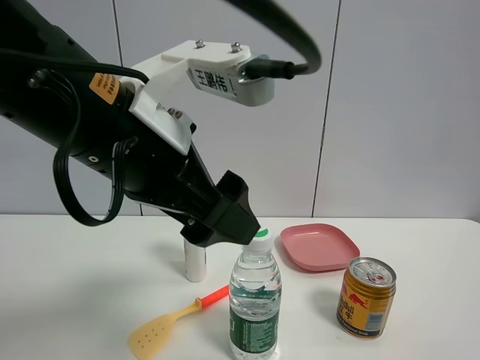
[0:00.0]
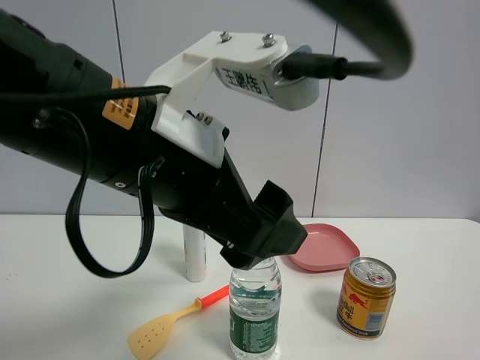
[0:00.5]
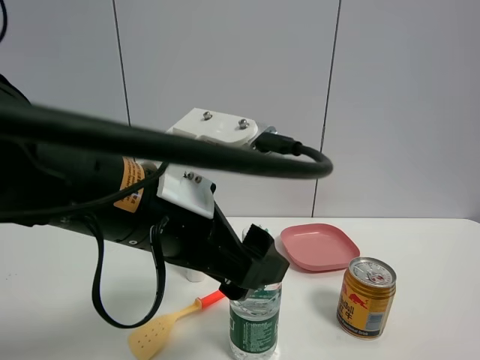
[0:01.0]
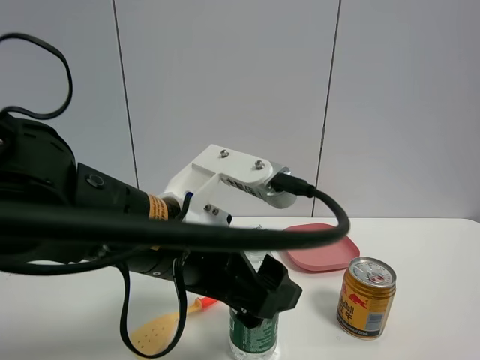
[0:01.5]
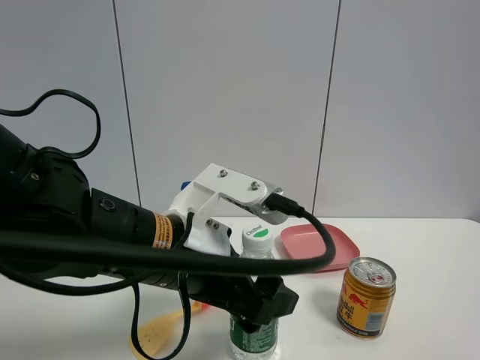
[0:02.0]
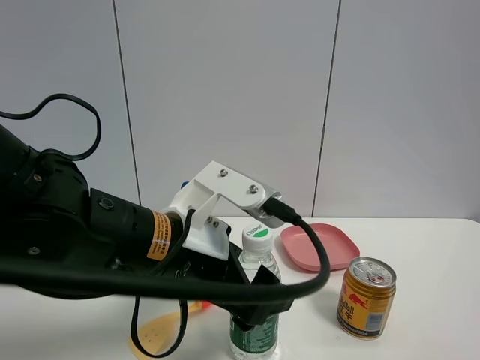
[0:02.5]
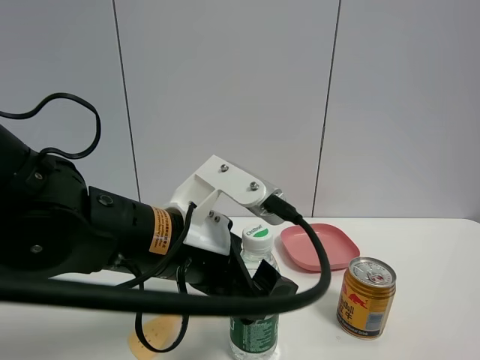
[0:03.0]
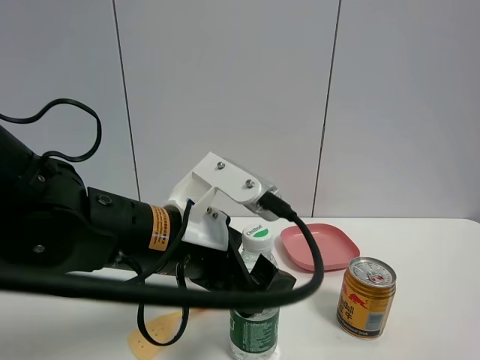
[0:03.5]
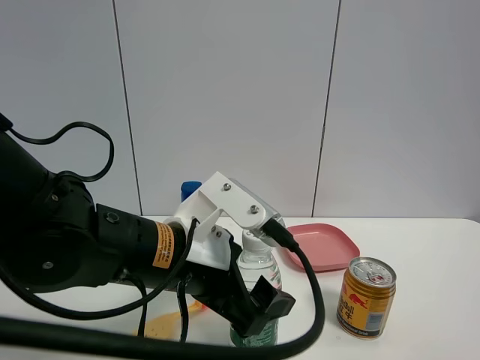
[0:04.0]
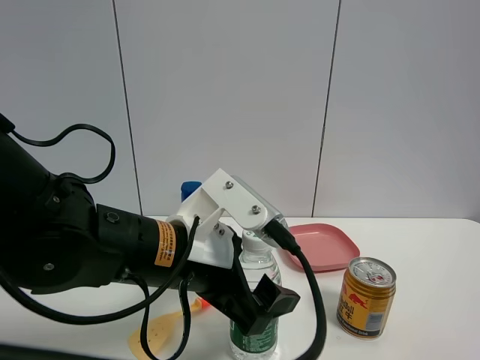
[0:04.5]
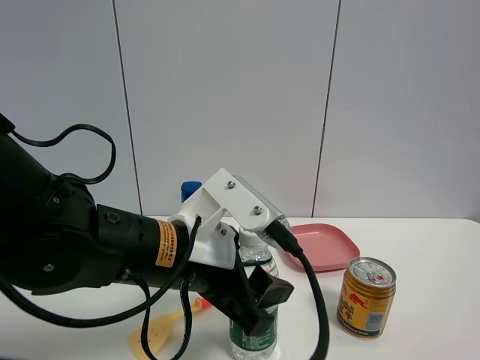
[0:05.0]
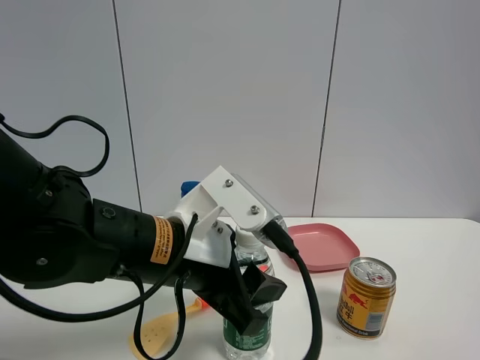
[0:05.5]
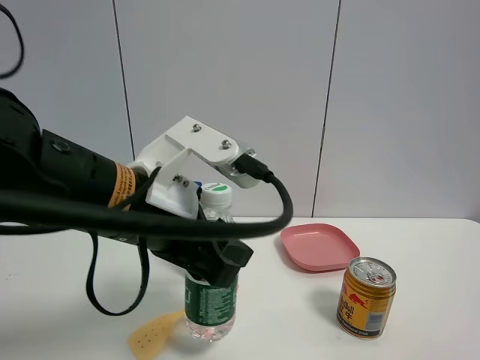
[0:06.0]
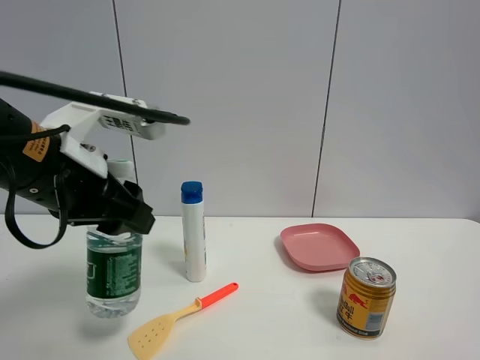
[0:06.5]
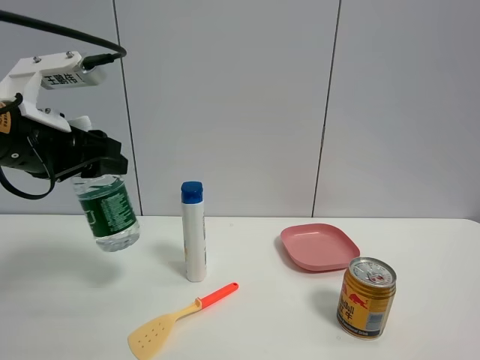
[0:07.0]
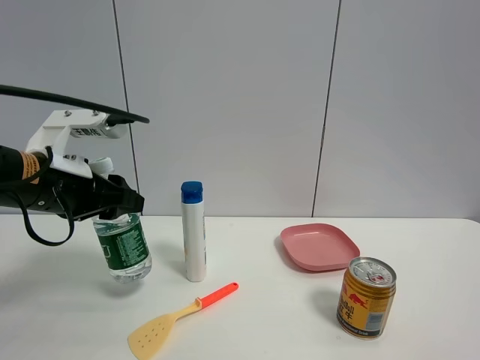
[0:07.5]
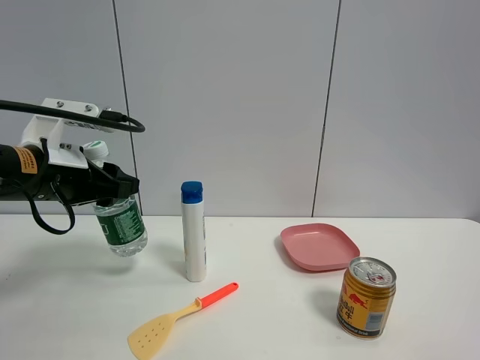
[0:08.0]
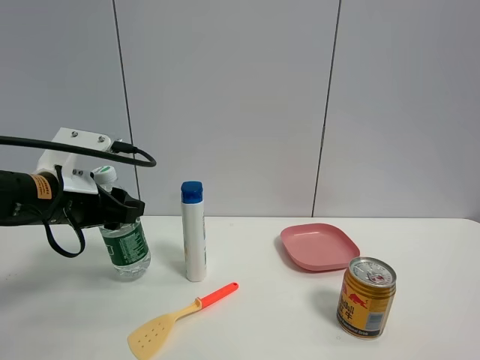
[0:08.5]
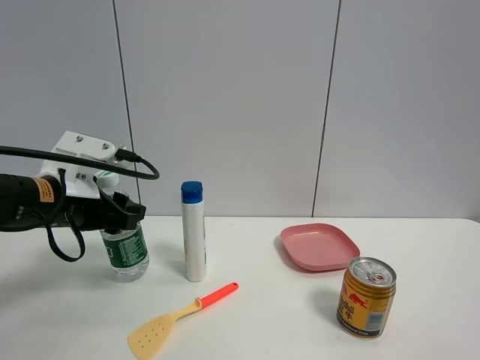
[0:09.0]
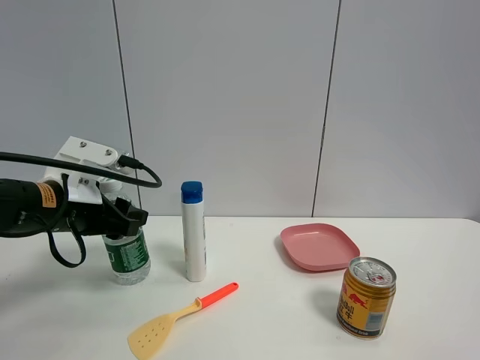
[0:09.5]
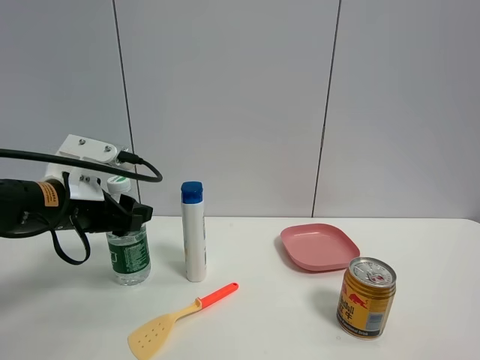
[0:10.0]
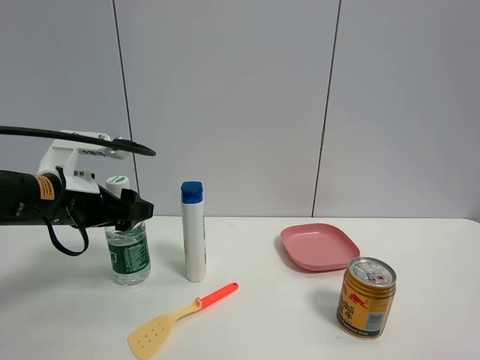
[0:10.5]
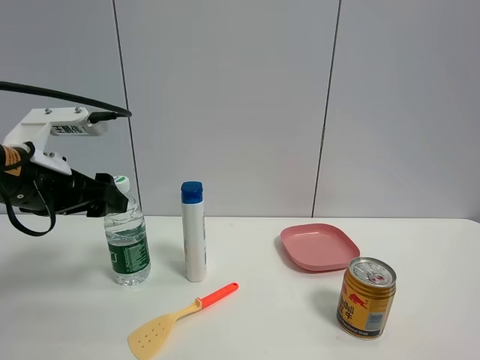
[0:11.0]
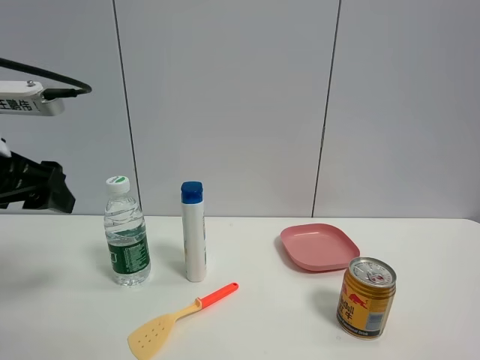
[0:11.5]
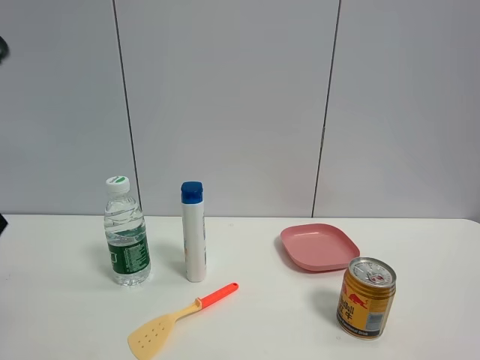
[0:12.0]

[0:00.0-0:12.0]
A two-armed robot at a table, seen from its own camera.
Task of the whole recording: the gripper move the object.
Step, 0:00.0 to 0:05.0: Grasp the YiBao mineral water with the left gripper.
Step, 0:05.5 to 0:10.0: Place the YiBao mineral water on the table with the left gripper.
0:00.0 to 0:02.0: The left gripper travels downward by about 10 cm.
0:02.0 to 0:04.0: The grippers stay close to where they were, moving slightly.
0:04.0 to 0:06.0: The left gripper travels upward by about 5 cm, and closes.
0:06.0 to 0:08.0: The left gripper goes some 15 cm to the left and forward.
0:08.0 to 0:10.0: The grippers make only small movements.
0:10.0 to 0:12.0: The left gripper moves backward and upward, roughly 20 cm, and opens its fingers.

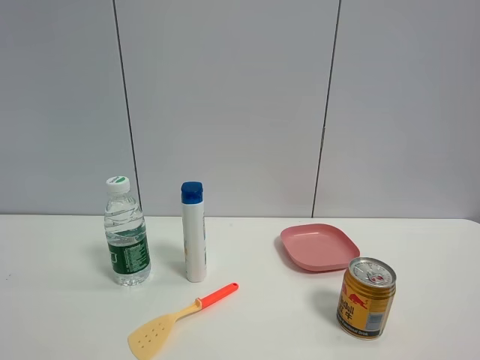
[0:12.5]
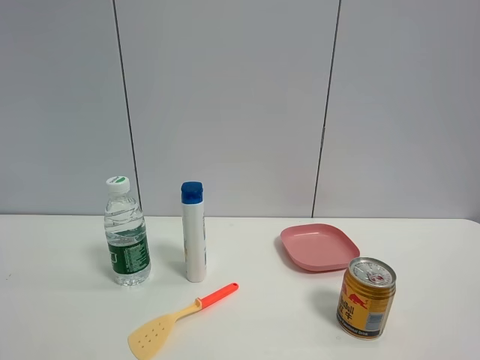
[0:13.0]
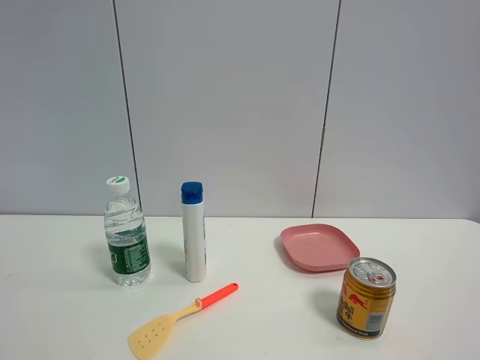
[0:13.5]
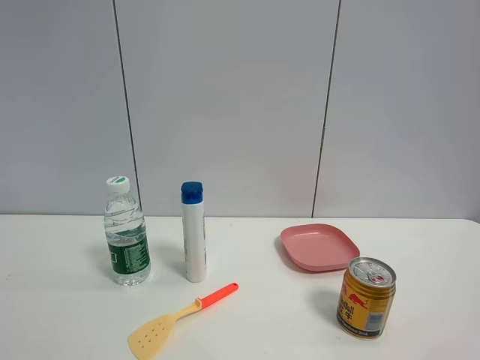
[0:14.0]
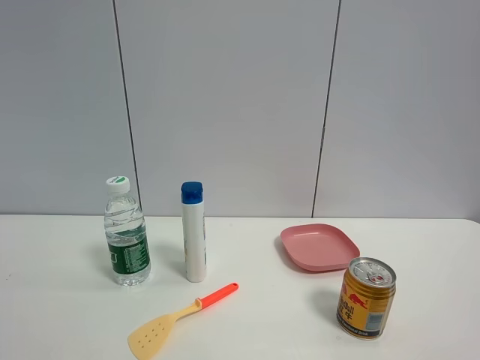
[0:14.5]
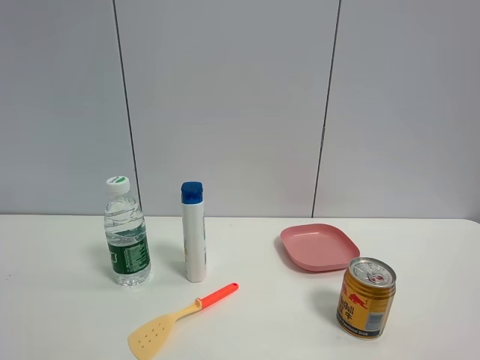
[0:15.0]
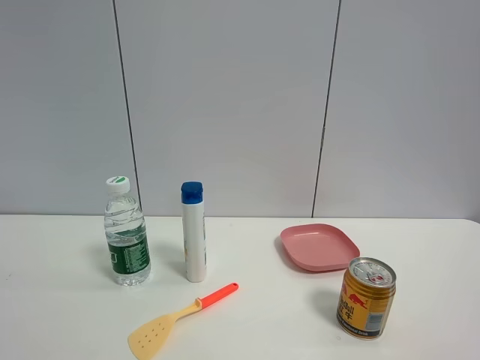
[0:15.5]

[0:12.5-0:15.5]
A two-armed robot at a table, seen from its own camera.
Task of the whole recording: the gripper move the object.
0:14.0 to 0:15.5: Neither gripper changes place.

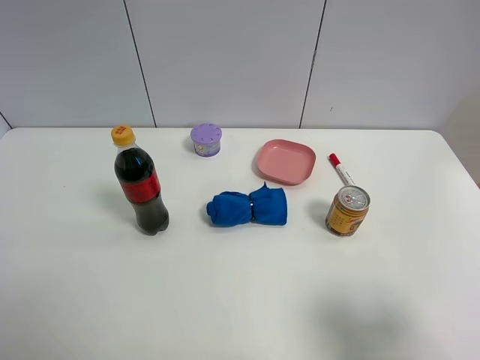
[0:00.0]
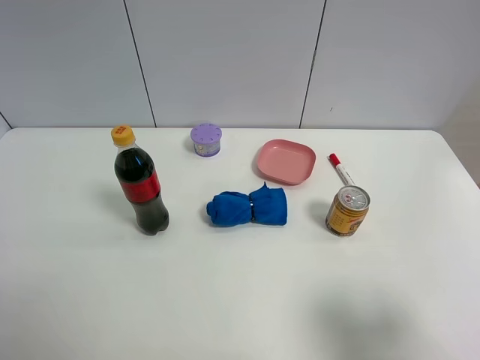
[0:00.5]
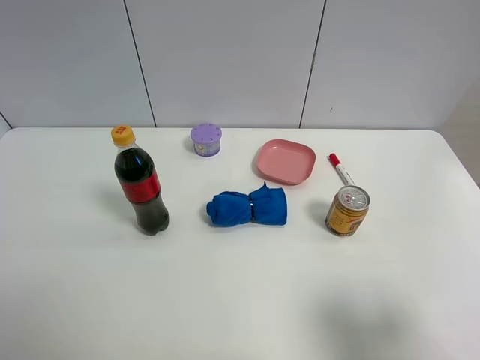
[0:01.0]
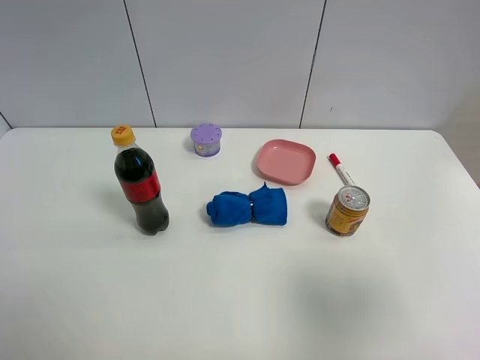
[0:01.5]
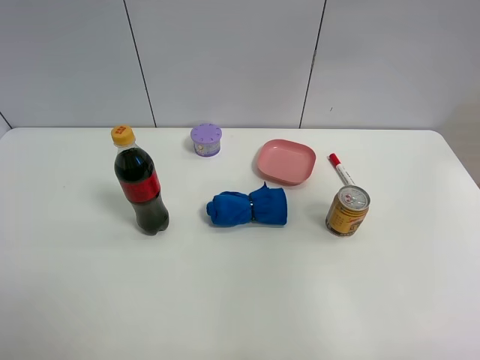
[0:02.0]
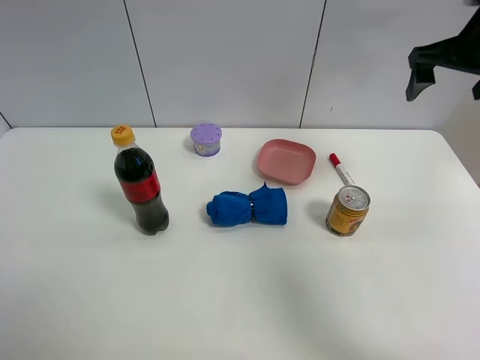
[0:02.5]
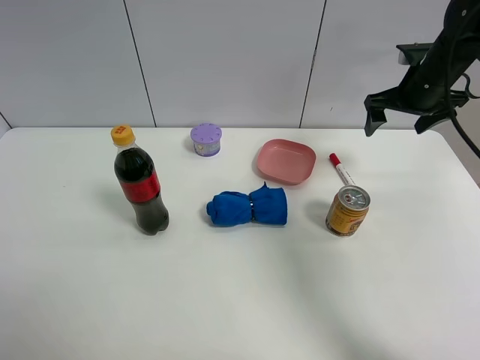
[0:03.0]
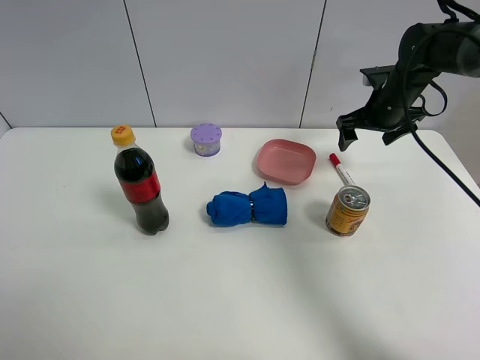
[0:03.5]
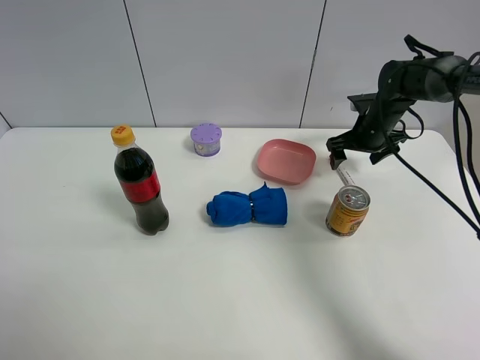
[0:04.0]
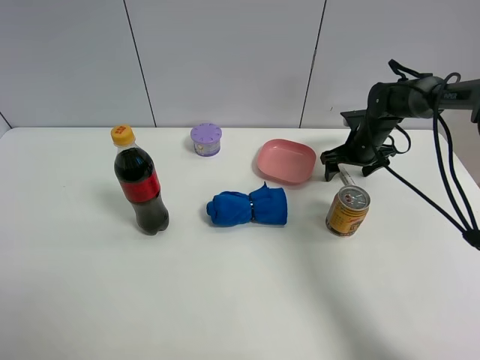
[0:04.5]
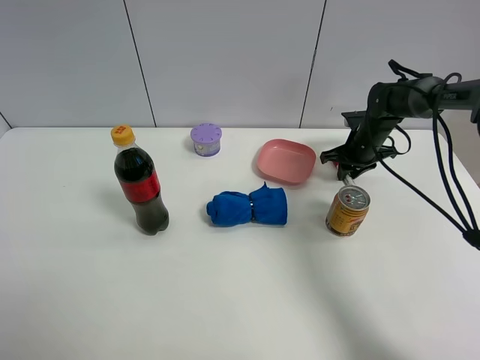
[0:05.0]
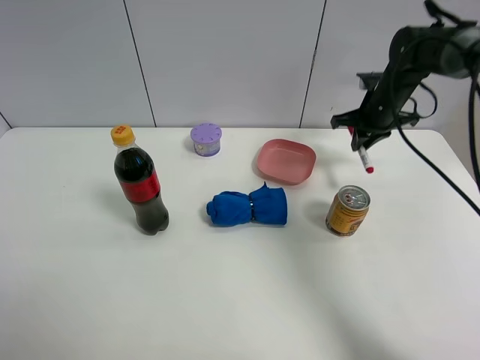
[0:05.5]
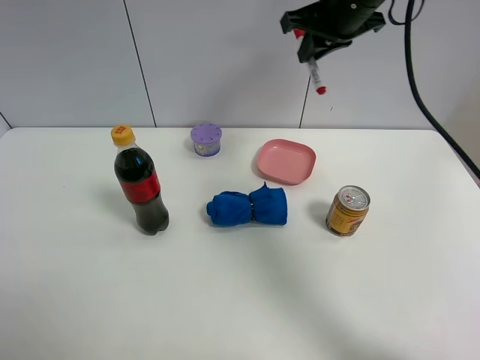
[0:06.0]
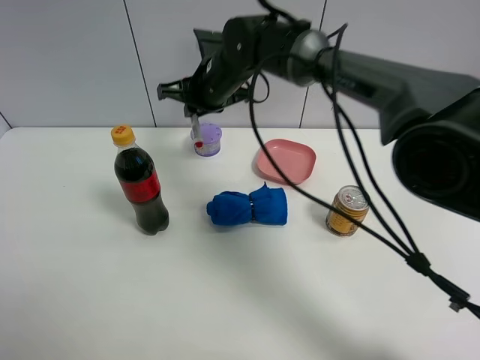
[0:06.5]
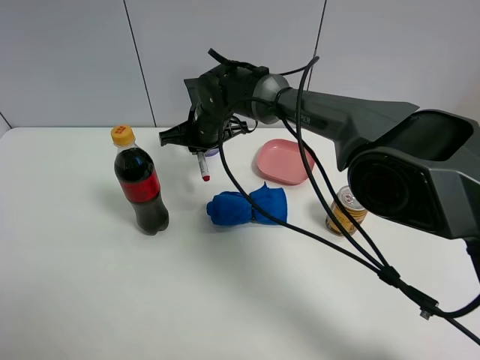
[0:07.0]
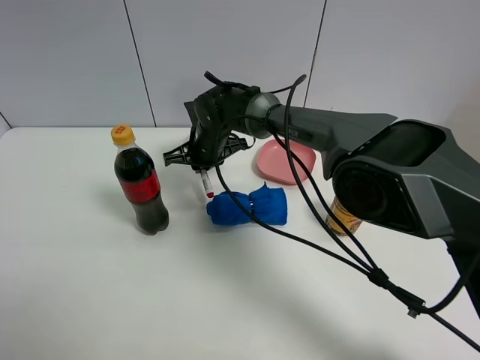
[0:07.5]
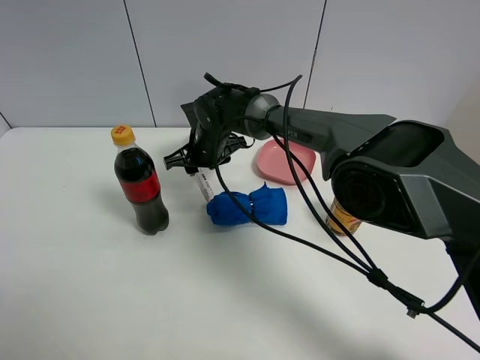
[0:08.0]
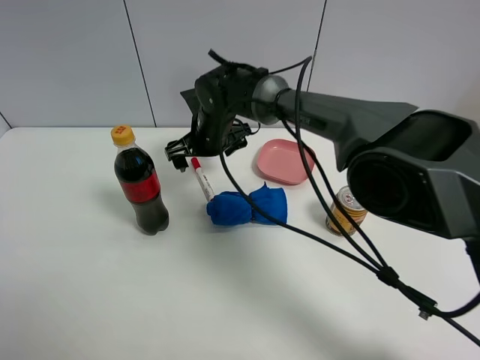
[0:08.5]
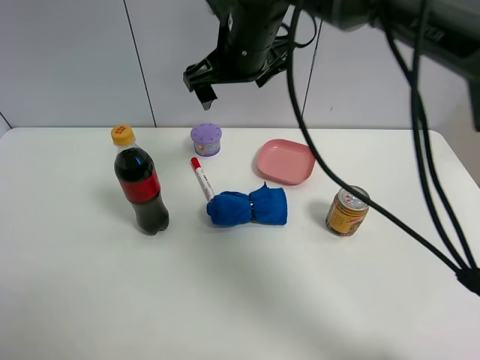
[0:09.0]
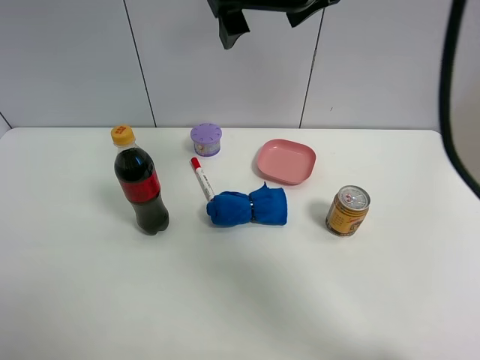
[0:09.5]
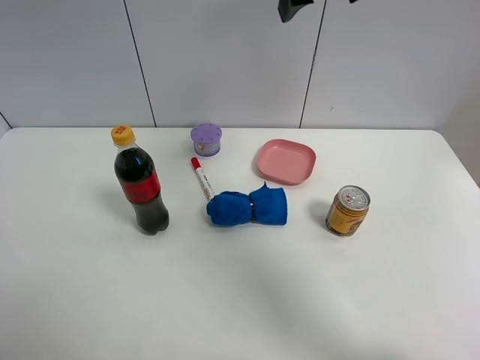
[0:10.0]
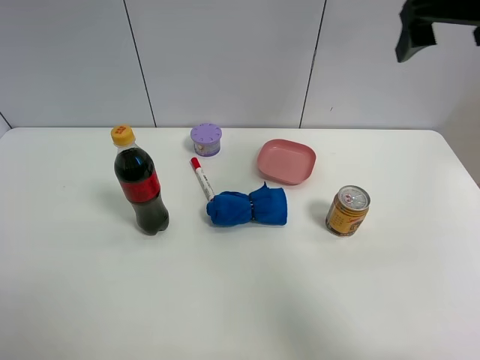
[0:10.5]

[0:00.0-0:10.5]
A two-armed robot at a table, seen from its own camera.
Task of the whole recording: the gripper move the object.
Step, 0:00.0 to 0:05.0: Grasp the red marker pen with the right gripper.
Step, 0:05.5 to 0:08.0: Place the red marker pen on the table with the right gripper.
0:00.0 to 0:02.0: The right gripper is displaced upward and forward by roughly 25 cm.
0:02.0 to 0:04.0: The right gripper travels downward and forward by roughly 40 cm.
0:04.0 to 0:06.5: The right gripper heads to the left, covering about 30 cm, and closes up.
0:06.5 to 0:08.5: The right gripper goes about 5 cm downward, and opens up.
0:08.5 to 0:10.5: The right gripper heads to the right and upward, covering approximately 40 cm.
